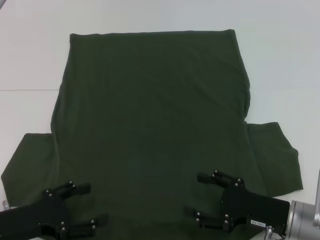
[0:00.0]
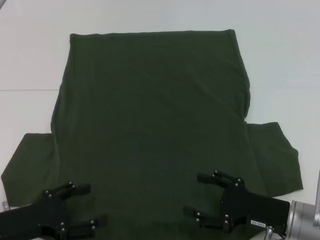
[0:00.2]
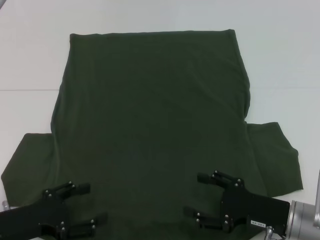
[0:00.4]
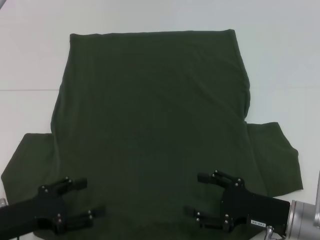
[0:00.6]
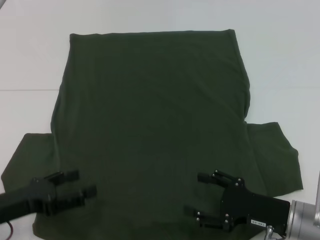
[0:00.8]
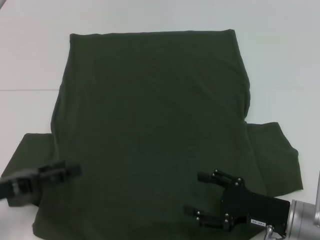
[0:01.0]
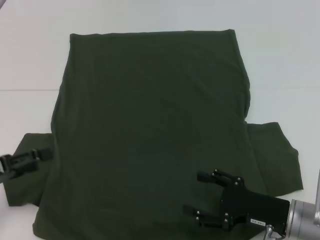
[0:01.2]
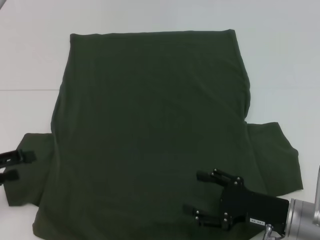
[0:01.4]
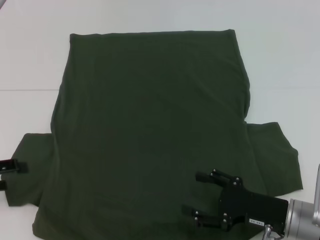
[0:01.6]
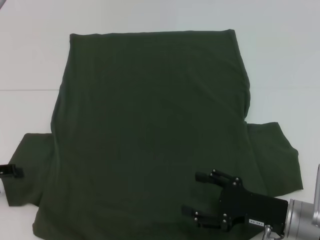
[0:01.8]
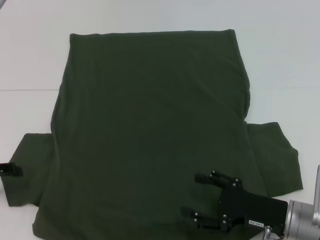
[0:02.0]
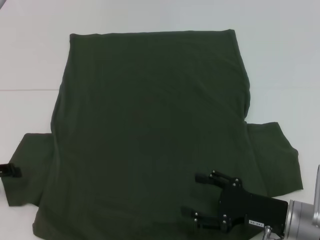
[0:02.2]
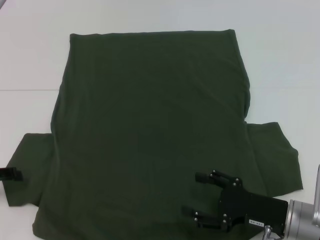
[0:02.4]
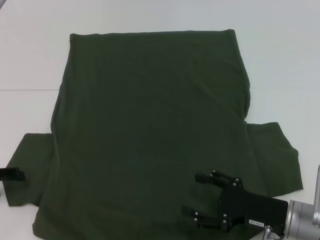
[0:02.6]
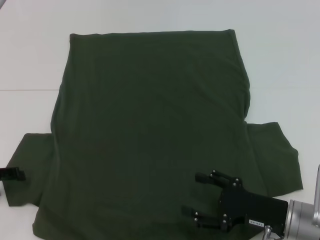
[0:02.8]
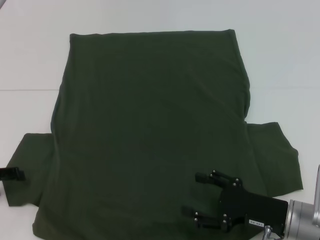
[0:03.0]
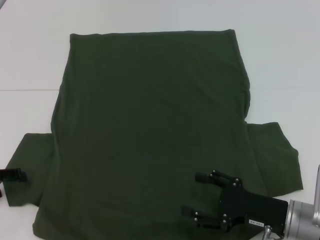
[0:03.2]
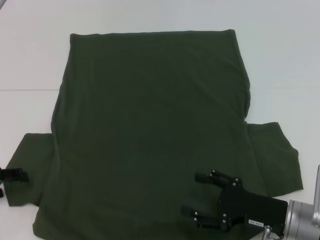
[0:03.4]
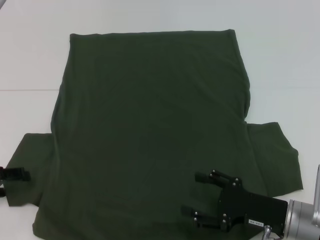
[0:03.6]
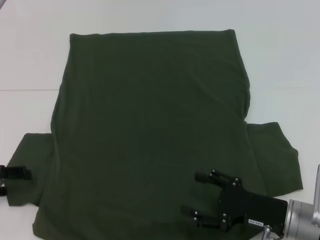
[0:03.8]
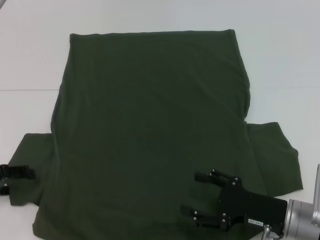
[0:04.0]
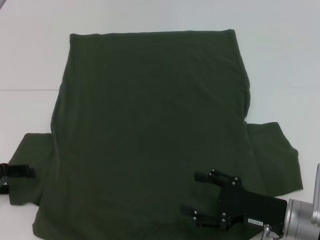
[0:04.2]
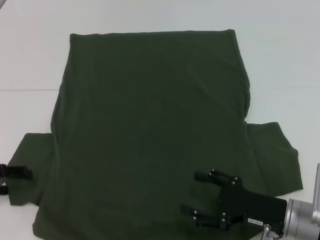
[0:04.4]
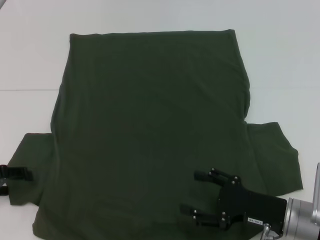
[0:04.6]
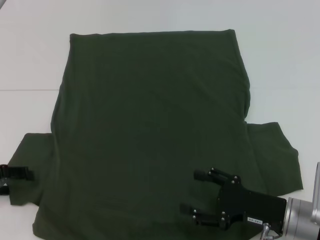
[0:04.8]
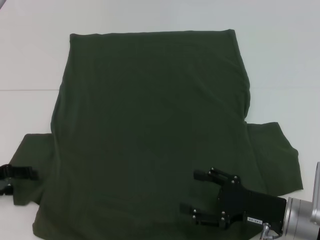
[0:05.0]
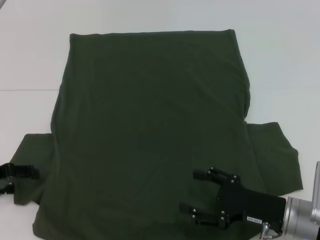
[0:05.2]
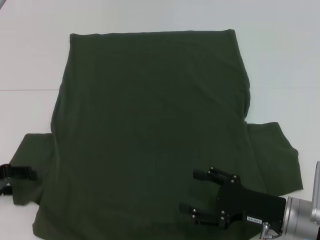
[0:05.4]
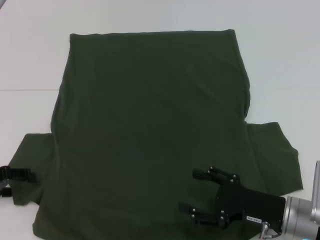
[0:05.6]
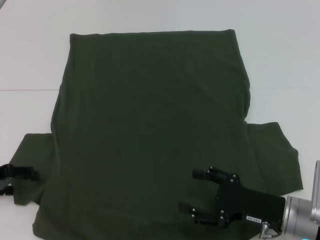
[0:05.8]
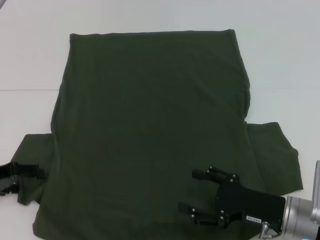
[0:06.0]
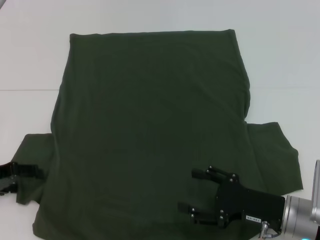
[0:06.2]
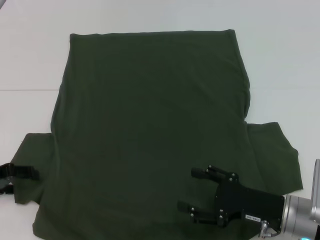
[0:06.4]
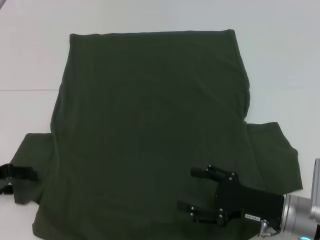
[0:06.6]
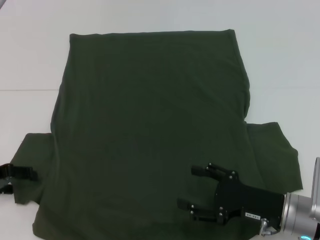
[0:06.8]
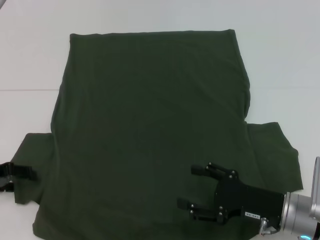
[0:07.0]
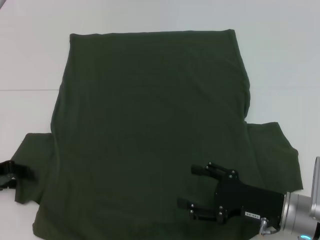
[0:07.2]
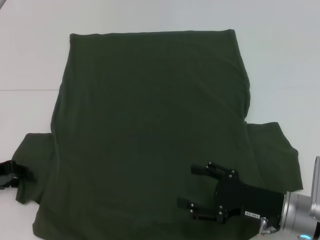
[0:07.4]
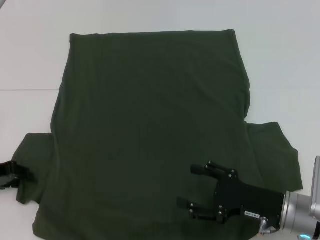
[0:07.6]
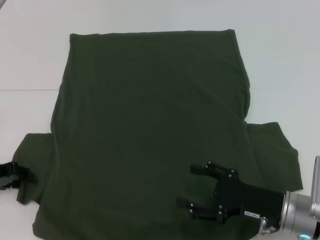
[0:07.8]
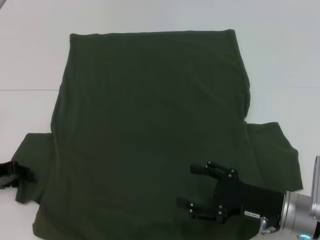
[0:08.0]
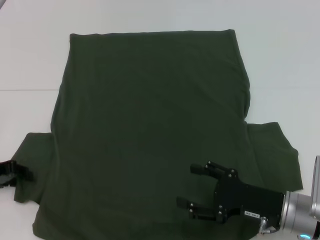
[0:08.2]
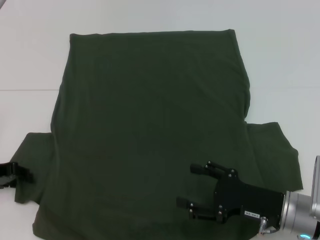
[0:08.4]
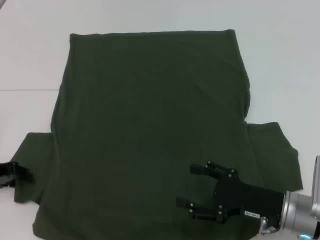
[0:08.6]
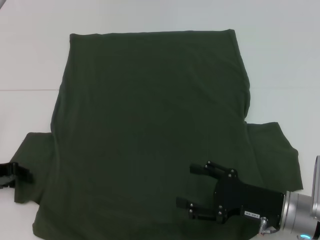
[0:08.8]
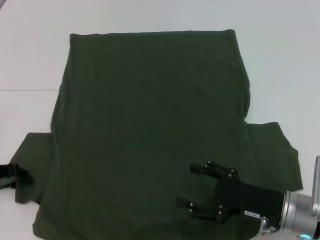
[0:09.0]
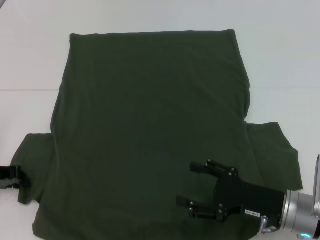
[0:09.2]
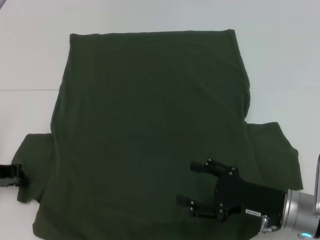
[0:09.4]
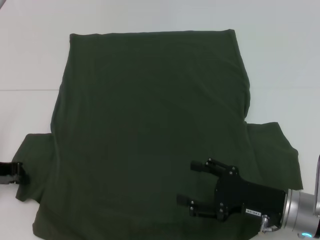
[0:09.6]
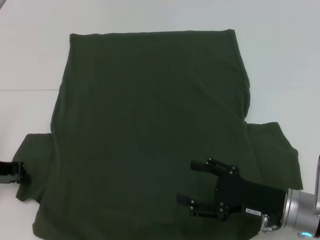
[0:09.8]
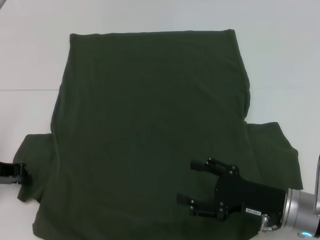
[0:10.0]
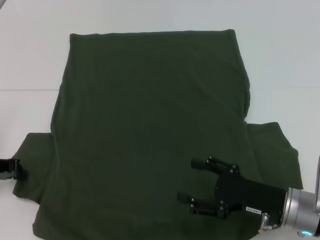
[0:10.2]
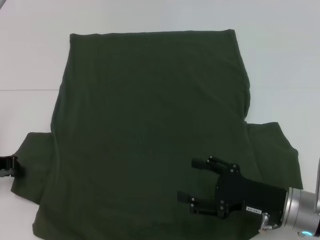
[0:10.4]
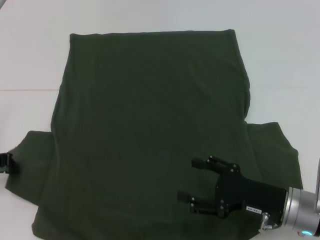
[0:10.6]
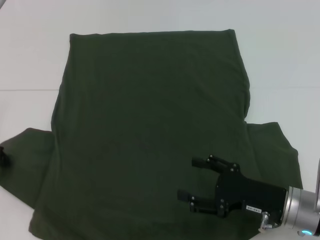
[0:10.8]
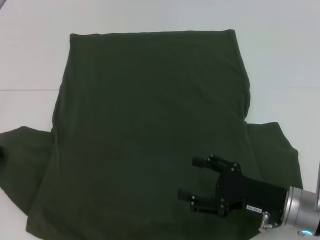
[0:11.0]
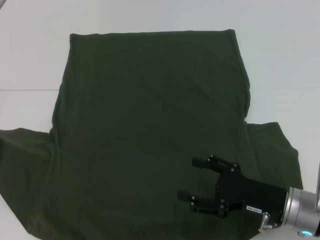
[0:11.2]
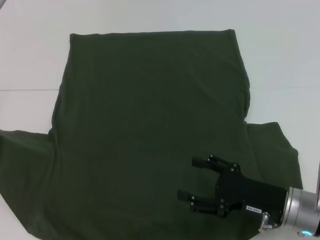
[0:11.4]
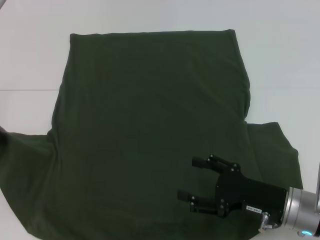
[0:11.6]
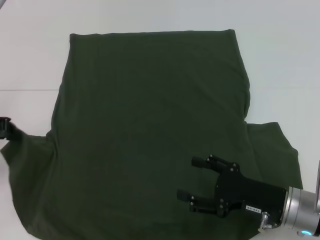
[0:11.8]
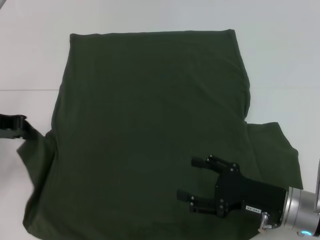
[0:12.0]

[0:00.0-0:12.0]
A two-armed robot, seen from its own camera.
0:00.0 to 0:01.6: The left gripper shifts approximately 10 cm to the left and upward.
0:03.0 to 0:04.4: Both grippers stay put.
0:04.4 to 0:06.0: The grippers make only small movements.
0:06.0 to 0:07.6: The left gripper closes.
0:09.0 to 0:10.4: The grippers move only a little.
0:10.4 to 0:12.0: The left gripper is displaced upward by roughly 5 cm.

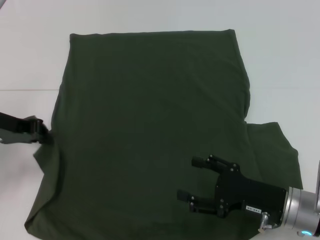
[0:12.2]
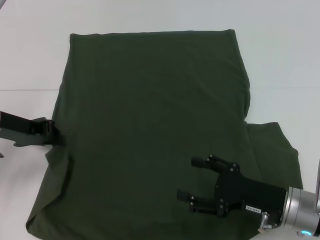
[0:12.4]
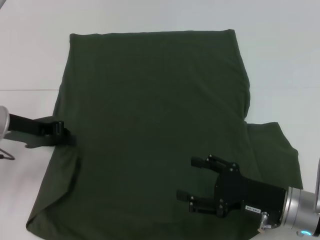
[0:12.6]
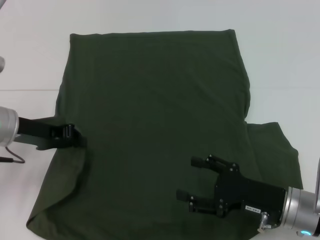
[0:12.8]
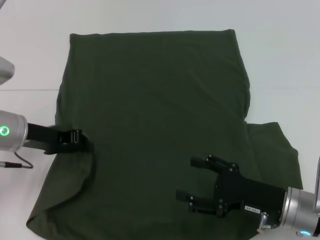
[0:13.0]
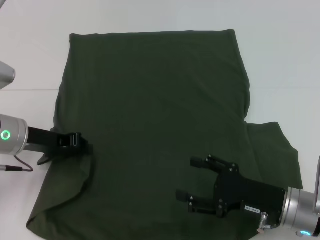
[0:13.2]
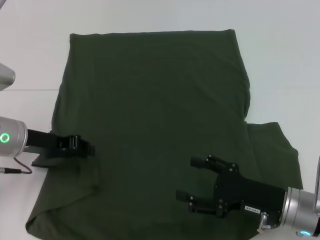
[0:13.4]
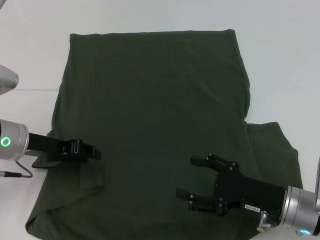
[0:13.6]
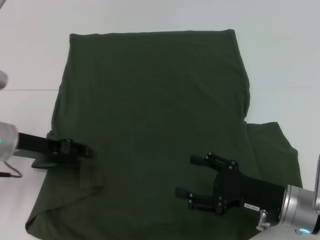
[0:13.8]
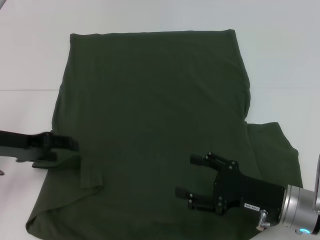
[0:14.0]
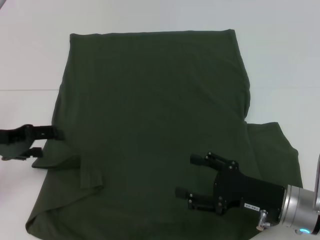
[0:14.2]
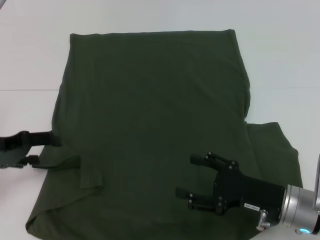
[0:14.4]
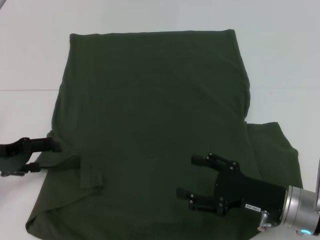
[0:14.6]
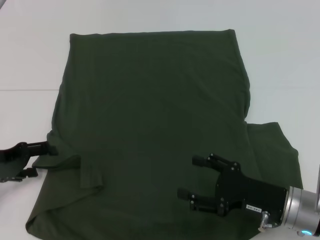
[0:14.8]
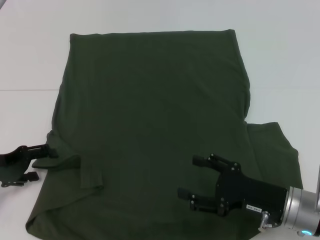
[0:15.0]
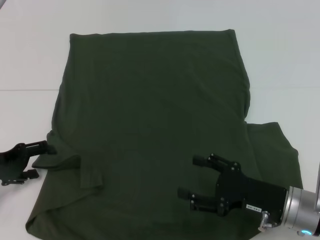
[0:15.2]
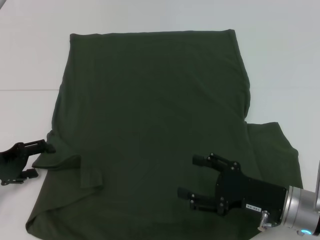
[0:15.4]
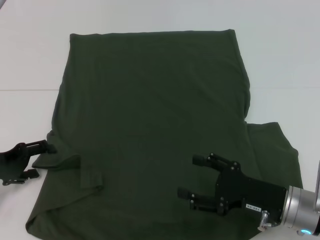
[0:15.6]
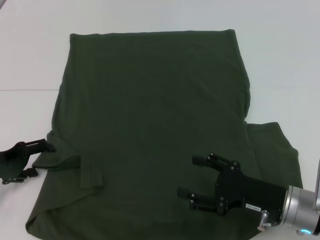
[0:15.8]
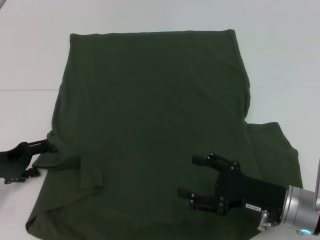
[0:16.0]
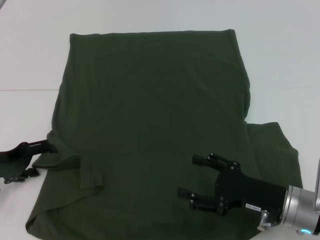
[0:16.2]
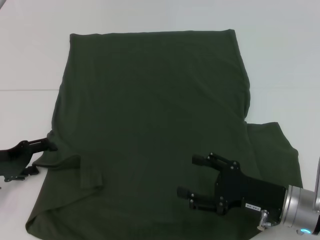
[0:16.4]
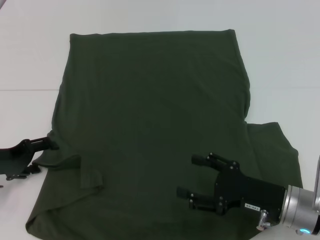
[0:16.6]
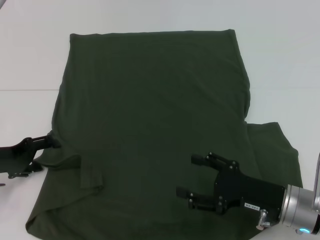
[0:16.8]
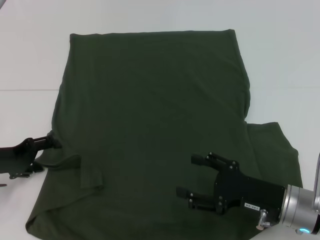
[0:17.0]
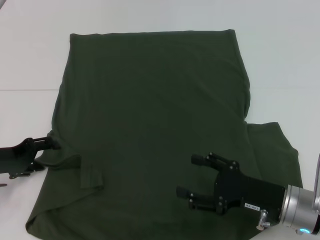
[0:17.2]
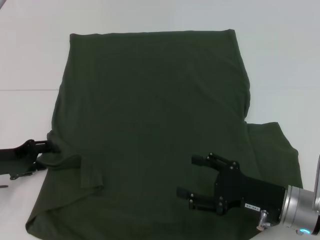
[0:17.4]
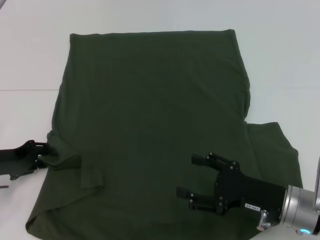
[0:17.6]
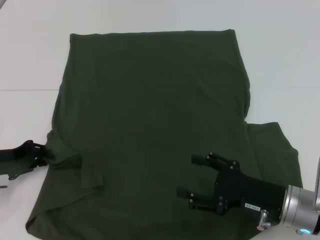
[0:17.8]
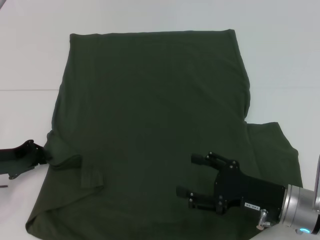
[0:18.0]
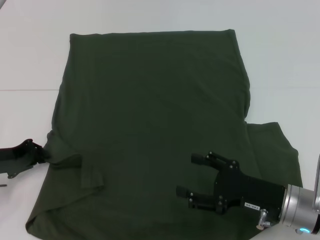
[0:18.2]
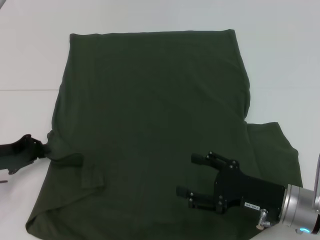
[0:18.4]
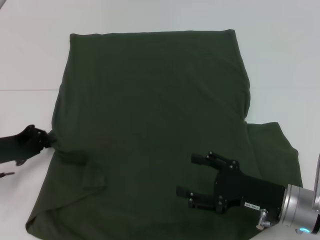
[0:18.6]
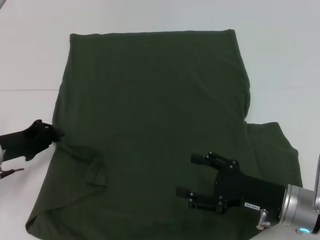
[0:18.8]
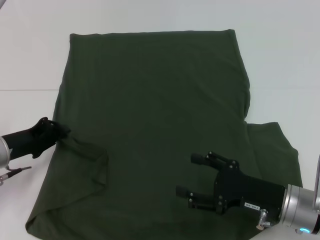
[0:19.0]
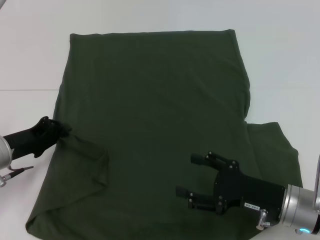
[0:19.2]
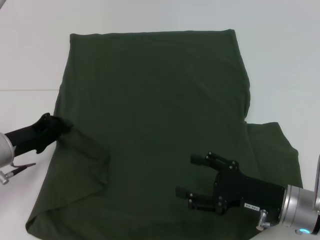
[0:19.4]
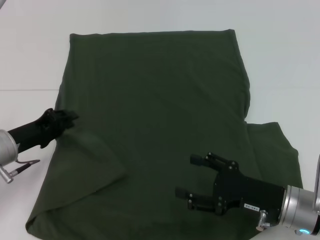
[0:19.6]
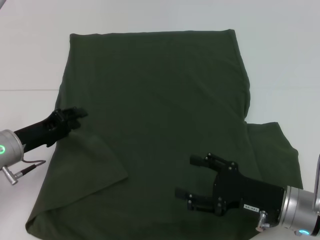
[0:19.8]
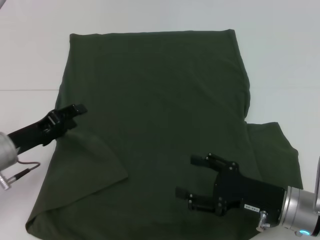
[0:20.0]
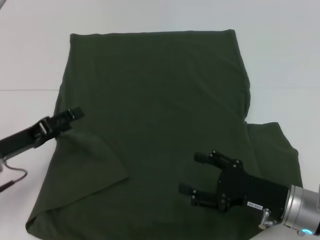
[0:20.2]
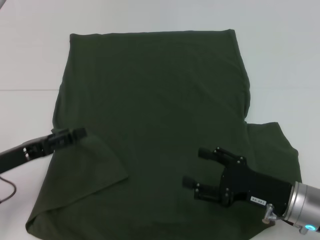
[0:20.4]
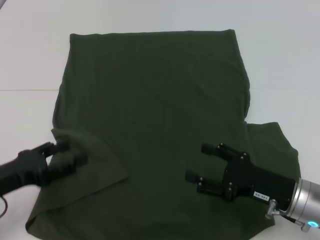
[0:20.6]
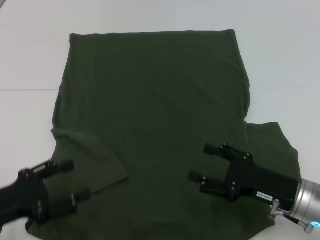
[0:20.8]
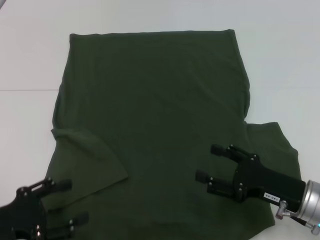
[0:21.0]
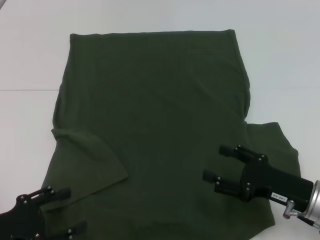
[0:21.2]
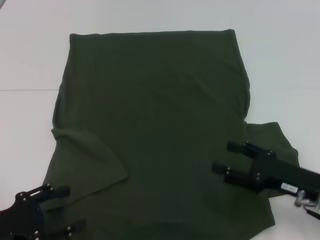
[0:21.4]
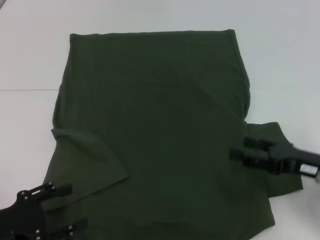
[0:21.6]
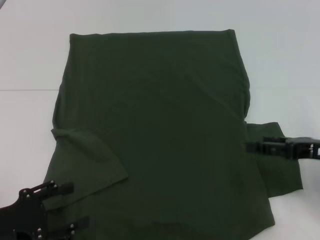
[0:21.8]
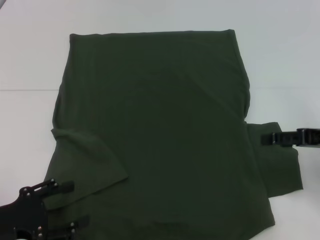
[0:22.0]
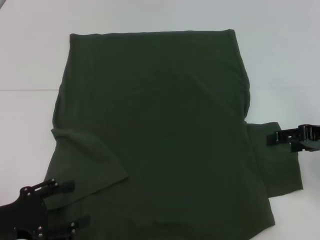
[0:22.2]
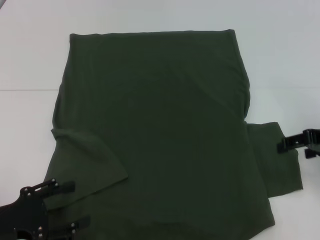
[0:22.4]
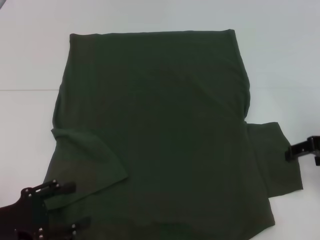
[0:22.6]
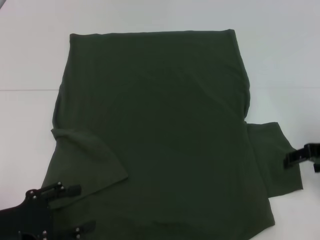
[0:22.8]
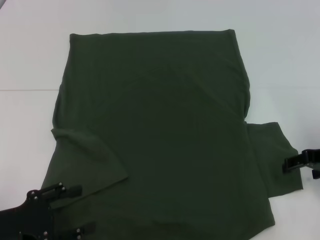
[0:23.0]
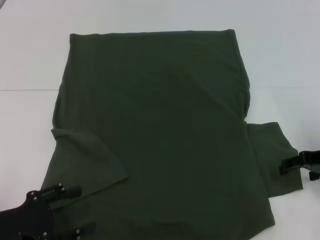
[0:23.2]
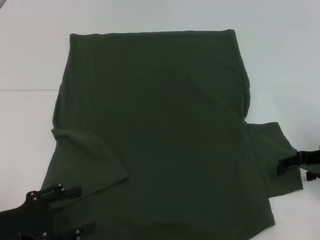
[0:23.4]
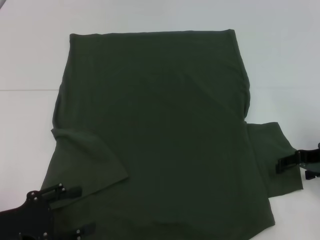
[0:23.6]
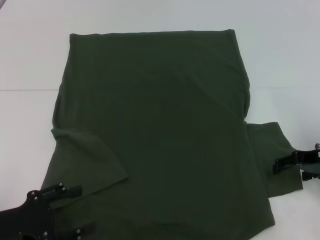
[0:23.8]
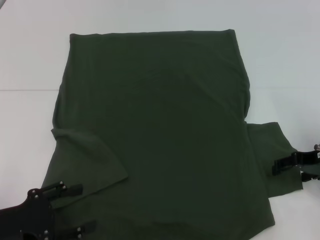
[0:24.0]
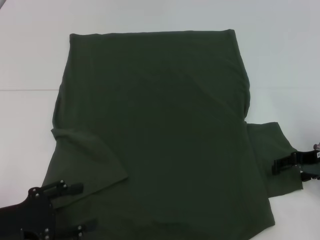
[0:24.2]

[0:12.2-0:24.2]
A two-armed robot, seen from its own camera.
Step, 0:12.2 to 0:19.6: Fold the bottom left sleeve with your left hand.
0:12.2 to 0:13.8: The left gripper moves about 5 cm.
0:13.8 to 0:15.2: The left gripper goes about 5 cm to the left, and opens up.
0:15.2 to 0:16.6: The grippers make only small movements.
0:16.6 to 0:18.2: The left gripper closes its fingers.
0:18.2 to 0:19.8: The left gripper moves to the right, approximately 5 cm.
0:19.8 to 0:21.2: The left gripper is displaced backward by some 15 cm, and opens its fingers.
0:21.2 to 0:22.6: The right gripper shifts about 15 cm upward, forward and to the right.
0:22.6 to 0:24.2: The right gripper moves downward, some 5 cm.
